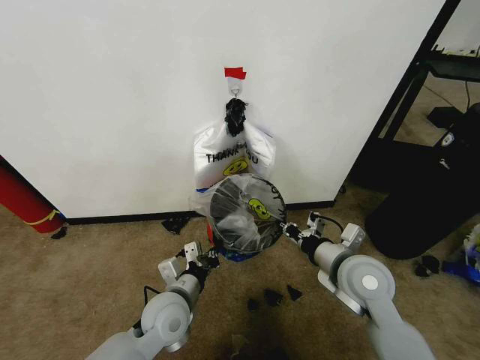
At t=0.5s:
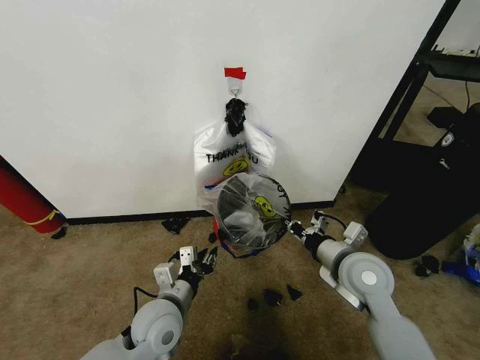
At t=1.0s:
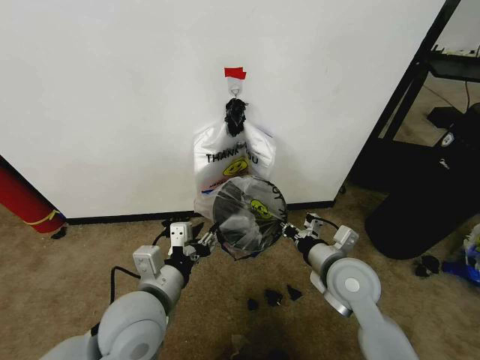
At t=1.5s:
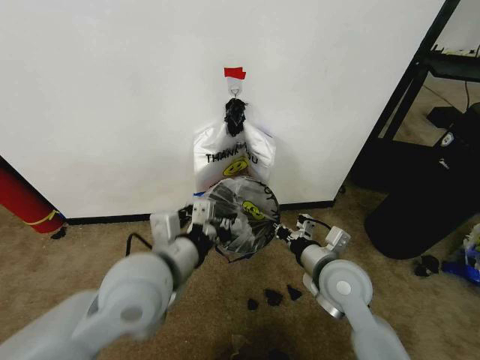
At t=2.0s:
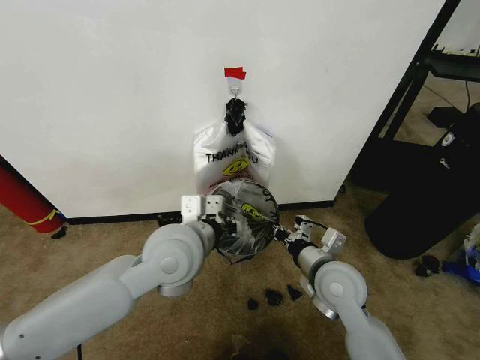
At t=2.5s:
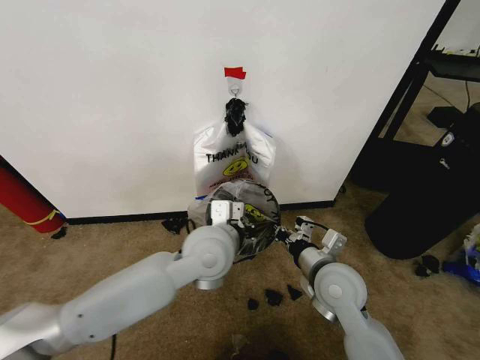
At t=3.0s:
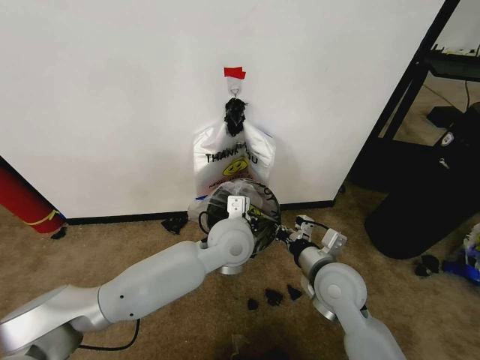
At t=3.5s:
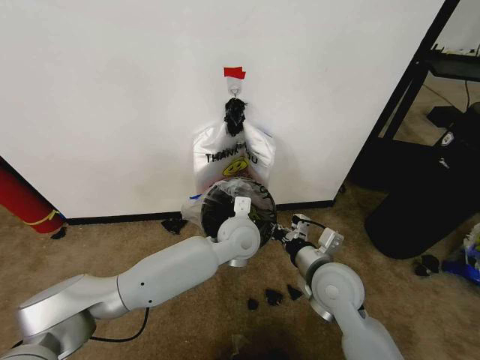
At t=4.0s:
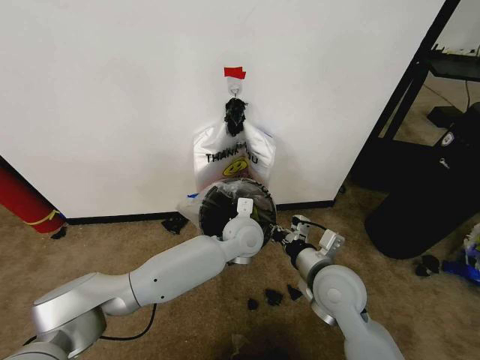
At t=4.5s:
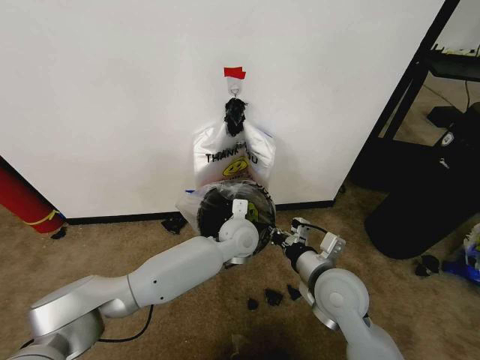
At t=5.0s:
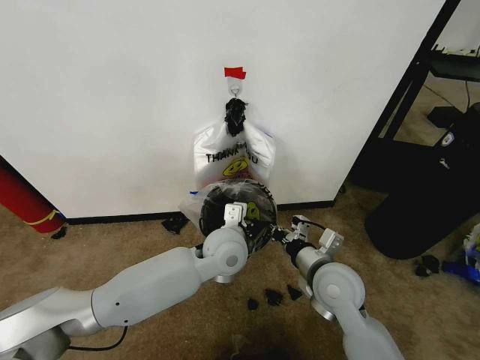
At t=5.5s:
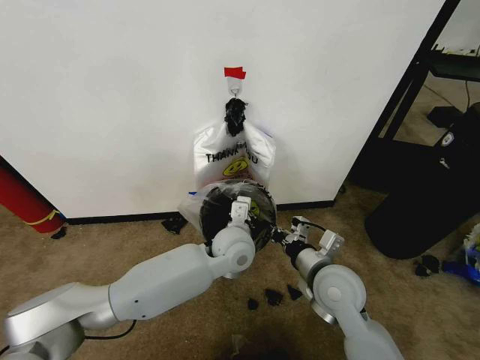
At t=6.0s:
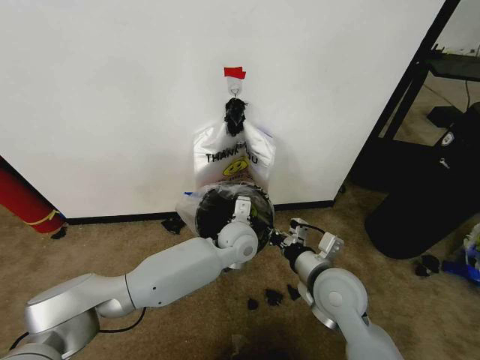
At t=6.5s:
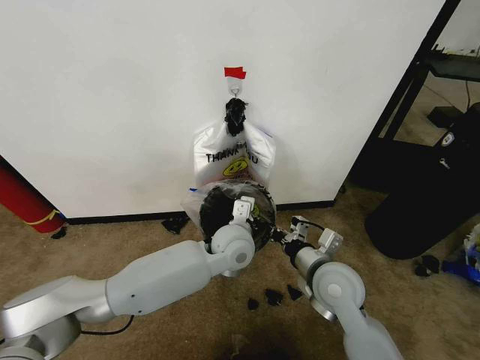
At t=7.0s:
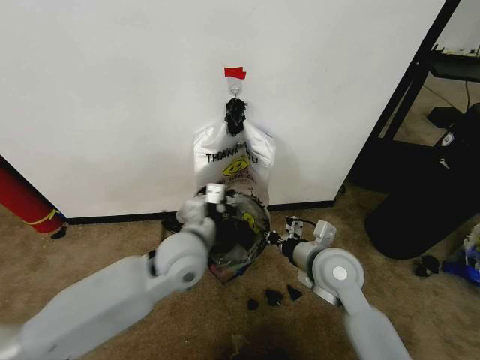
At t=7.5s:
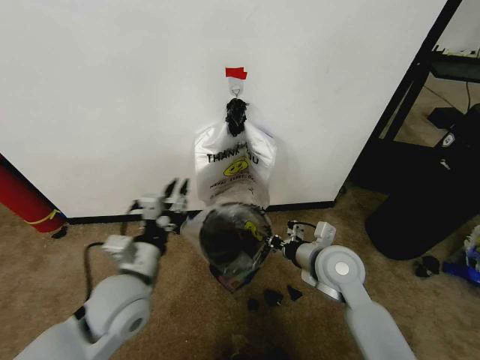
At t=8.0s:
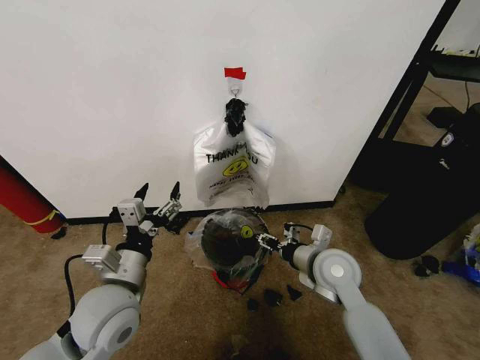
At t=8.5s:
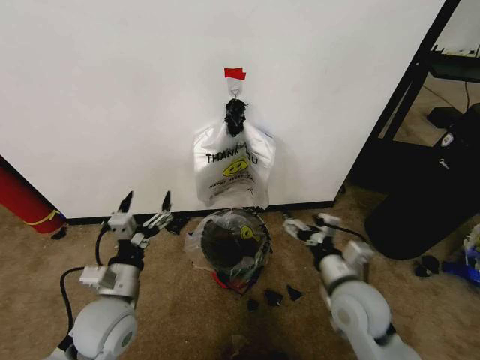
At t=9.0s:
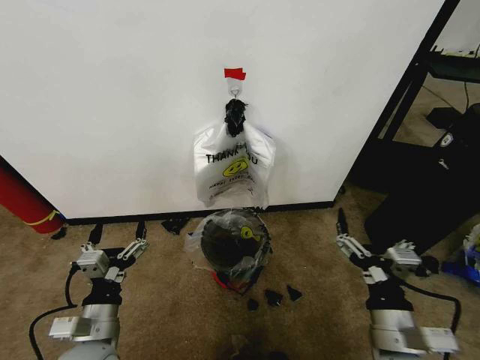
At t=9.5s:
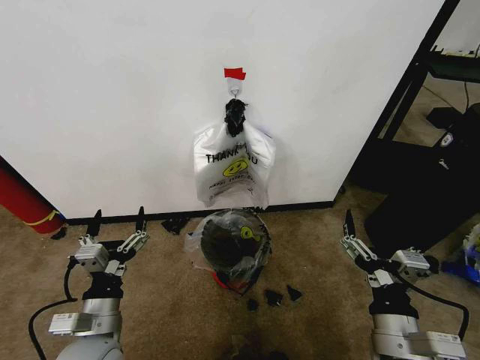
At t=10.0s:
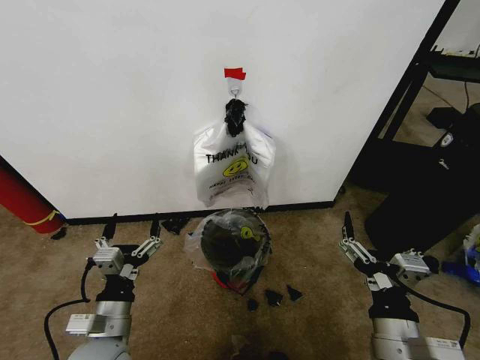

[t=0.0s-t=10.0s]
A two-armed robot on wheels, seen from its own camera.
Task of the whole recording: Pick up the garbage bag from the wall and place it over the trash bin.
t=0.0s to t=2.0s: The left gripper moves upward, about 20 cm, and opens, then closes again.
t=2.0s to t=4.0s: The left gripper is displaced downward, forward and to the right by approximately 20 cm.
t=6.0s to t=8.0s: The left gripper moves to the left and backward, roughly 30 cm, and opens its fingers. Meanwhile the right gripper goes roughly 5 cm forward, and opens.
t=8.0s to t=10.0s: The right gripper travels backward by some 20 cm, and opens up, while the left gripper shifts some 10 cm downward and backward.

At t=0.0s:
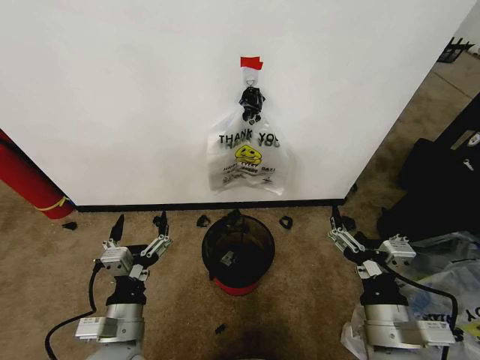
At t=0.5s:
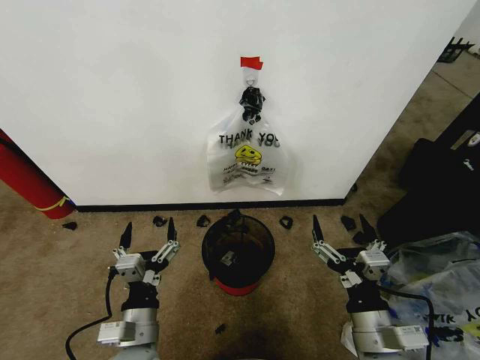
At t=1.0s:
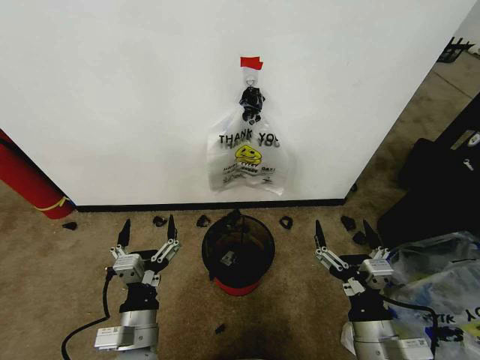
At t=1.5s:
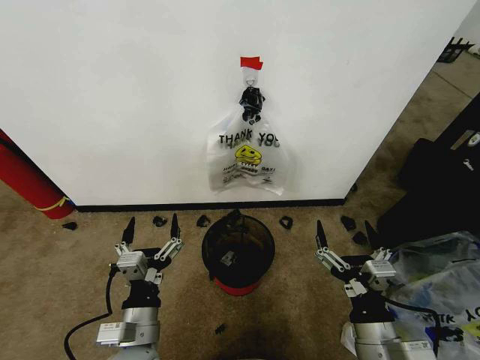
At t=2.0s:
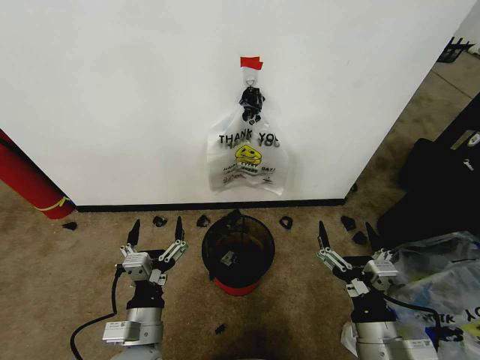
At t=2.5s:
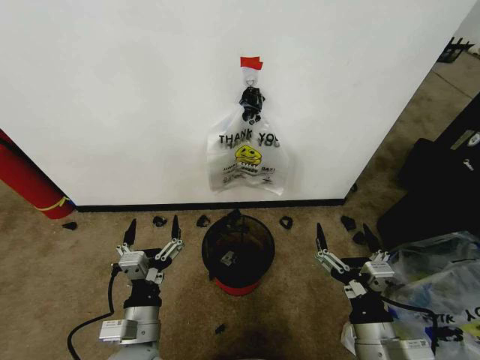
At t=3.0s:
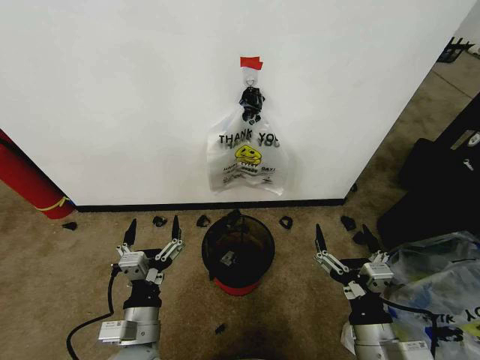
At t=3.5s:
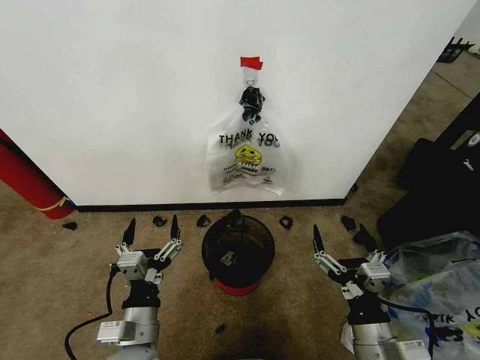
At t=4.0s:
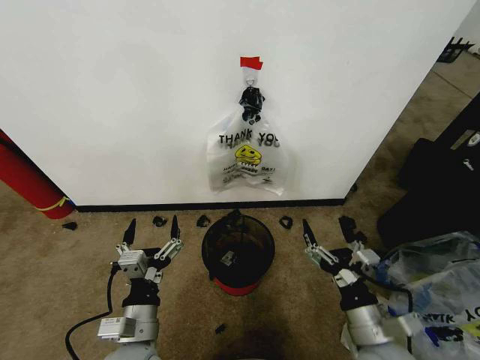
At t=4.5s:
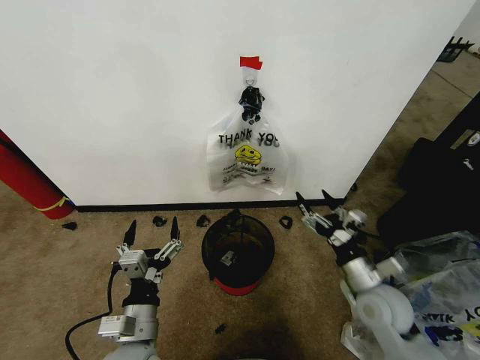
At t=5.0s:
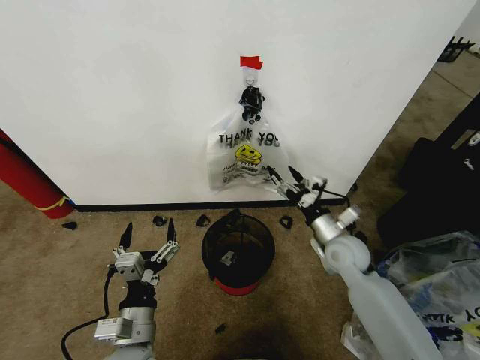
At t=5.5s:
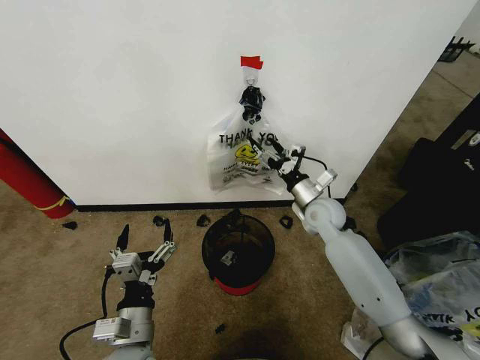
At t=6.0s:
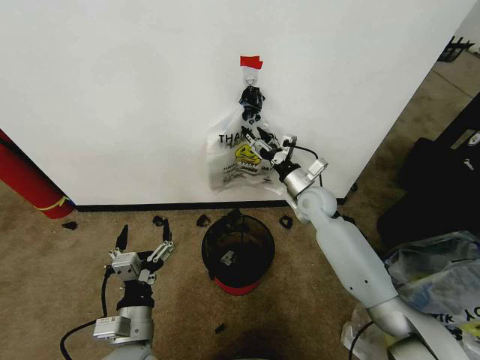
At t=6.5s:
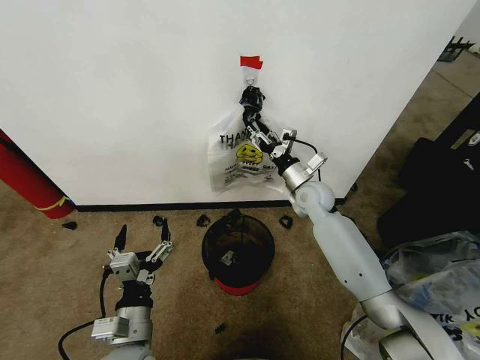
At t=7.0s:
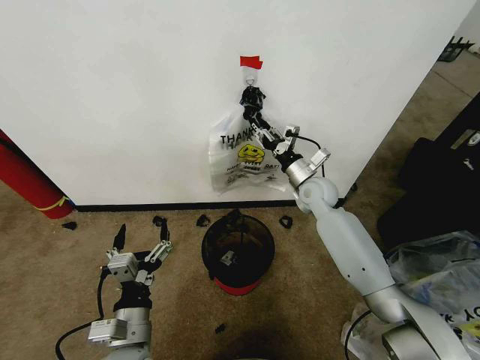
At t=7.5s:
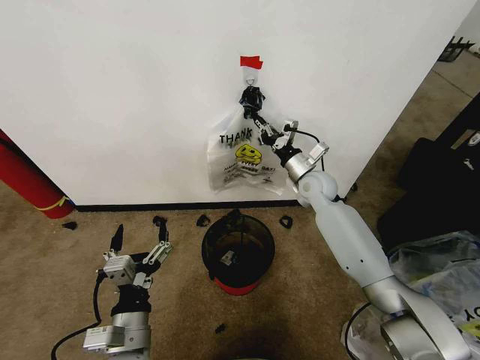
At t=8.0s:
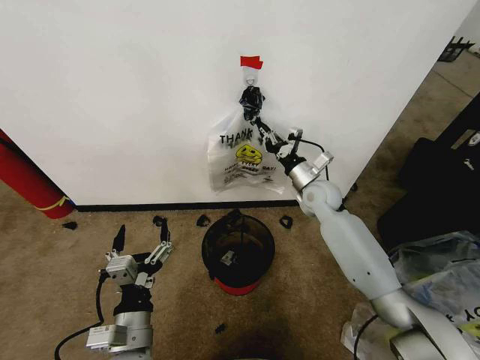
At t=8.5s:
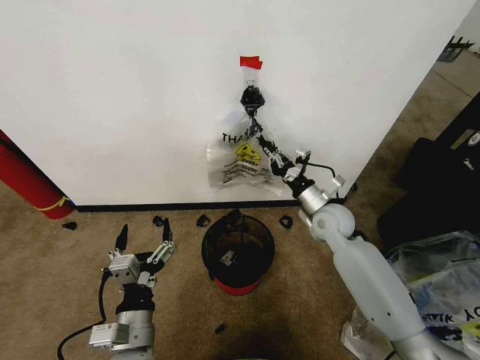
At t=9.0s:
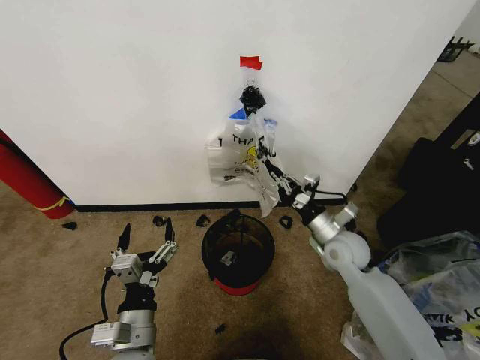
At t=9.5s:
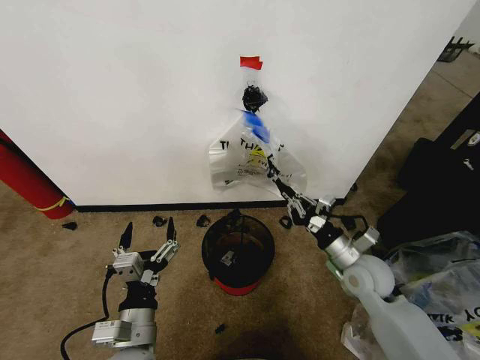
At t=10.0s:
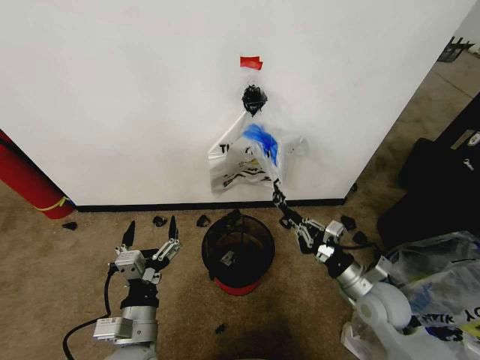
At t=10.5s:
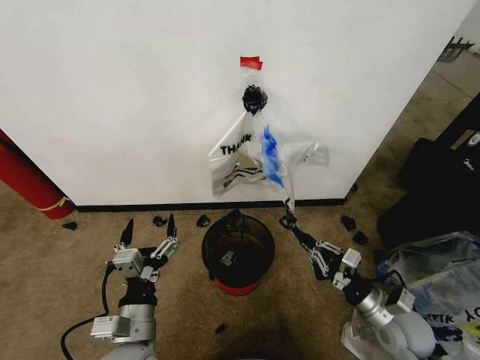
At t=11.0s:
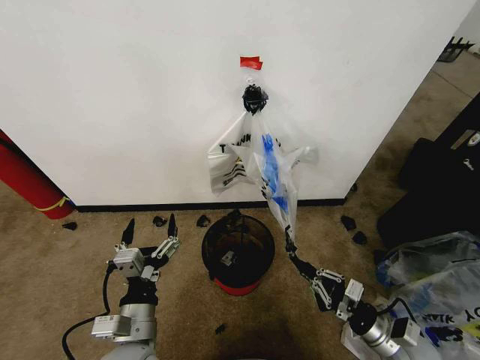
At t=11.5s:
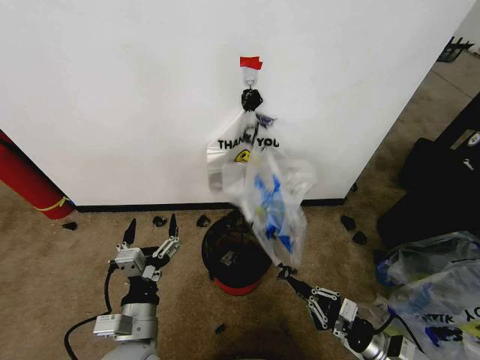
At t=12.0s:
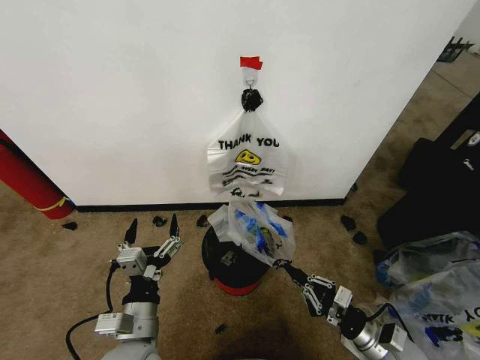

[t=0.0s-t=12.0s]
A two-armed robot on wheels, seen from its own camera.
Task of the whole recording: Pick up the garbage bag from the wall and place it over the trash bin.
t=2.0s to t=4.0s: The grippers stay close to where they were, moving slightly.
t=4.0s to t=6.0s: The right gripper goes roughly 35 cm forward.
t=6.0s to t=8.0s: The right gripper closes its fingers.
t=8.0s to t=10.0s: The right gripper heads backward, covering approximately 25 cm.
t=10.0s to t=12.0s: The right gripper shifts about 10 cm backward and downward.

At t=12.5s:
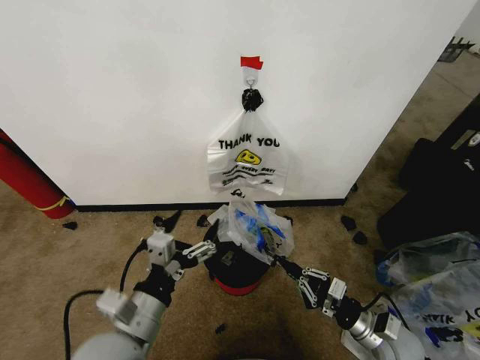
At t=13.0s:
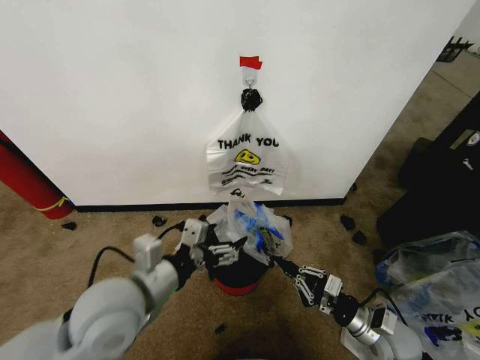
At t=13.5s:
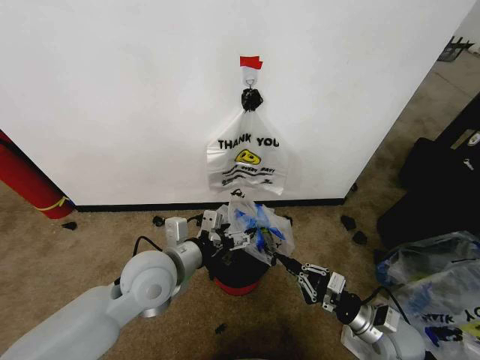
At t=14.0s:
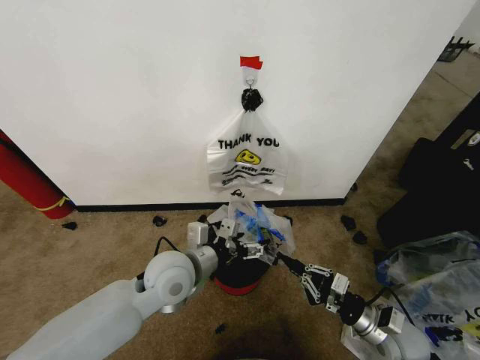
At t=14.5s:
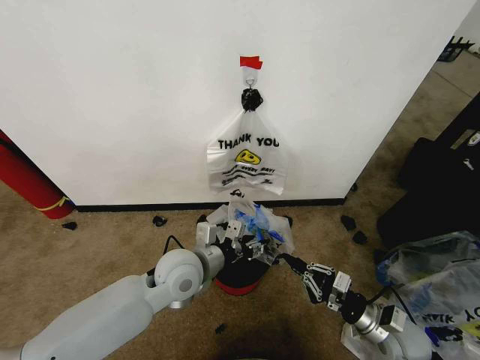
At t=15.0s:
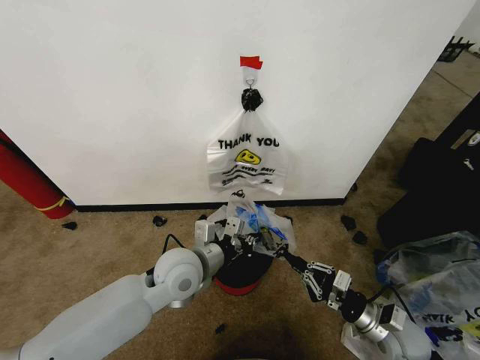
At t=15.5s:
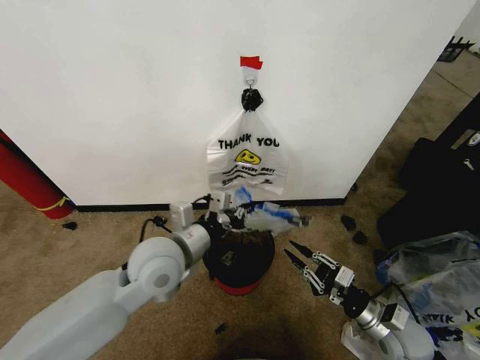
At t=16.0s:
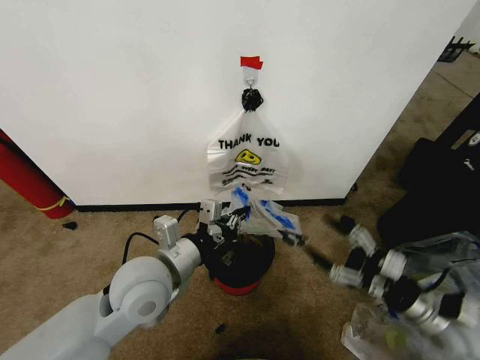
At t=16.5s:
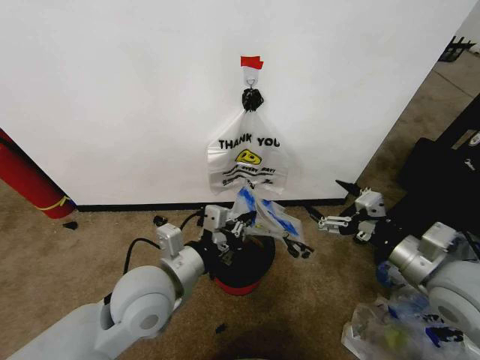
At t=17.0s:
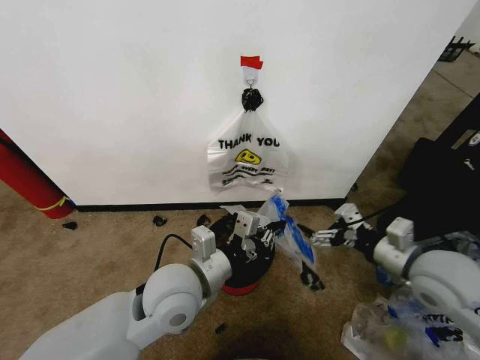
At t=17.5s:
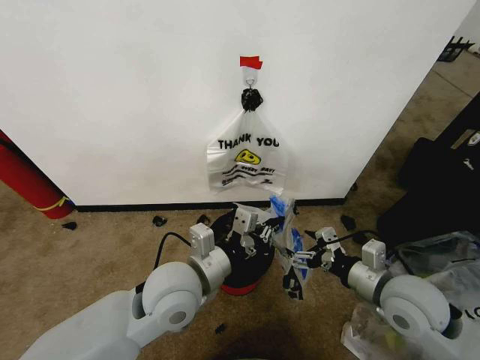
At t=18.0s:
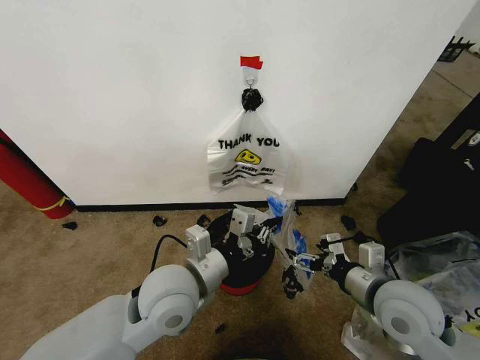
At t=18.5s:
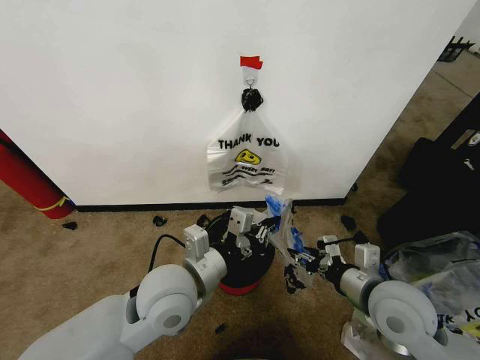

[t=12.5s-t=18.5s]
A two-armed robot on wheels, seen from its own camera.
Task of the whole recording: Pick up the garbage bag from the wall and place it over the trash bin.
t=12.5s to t=14.5s: The left gripper goes roughly 15 cm forward, and closes up.
t=14.5s to t=16.5s: The right gripper moves upward, approximately 20 cm, and opens up, while the left gripper heads backward and upward, covering about 10 cm, and closes up.
t=16.5s to t=18.5s: The right gripper is displaced to the left and downward by about 10 cm, and closes its fingers.
